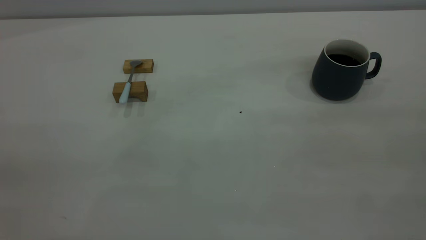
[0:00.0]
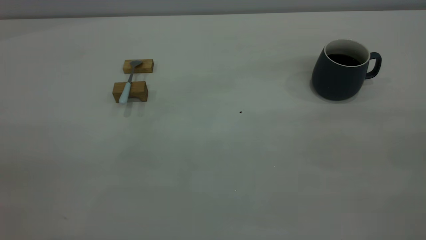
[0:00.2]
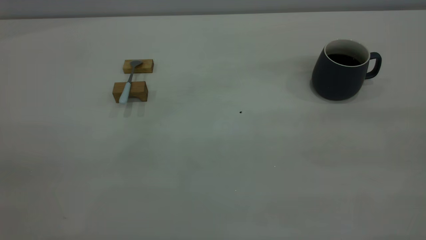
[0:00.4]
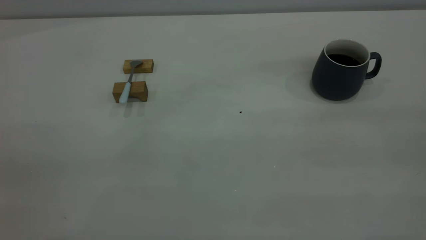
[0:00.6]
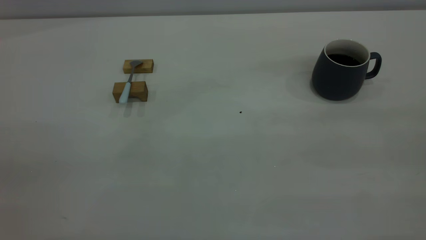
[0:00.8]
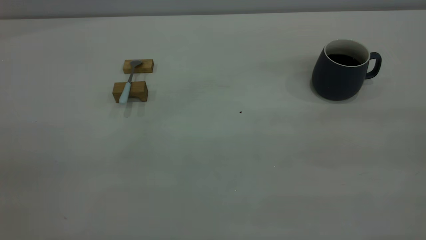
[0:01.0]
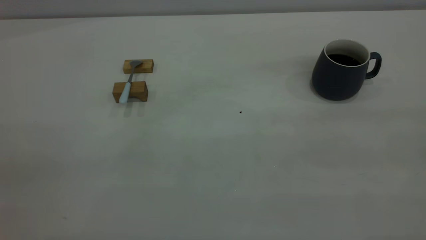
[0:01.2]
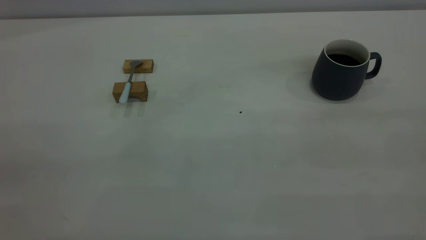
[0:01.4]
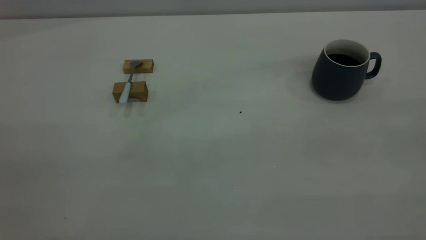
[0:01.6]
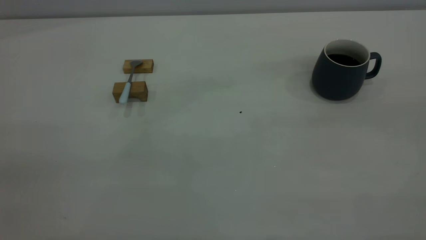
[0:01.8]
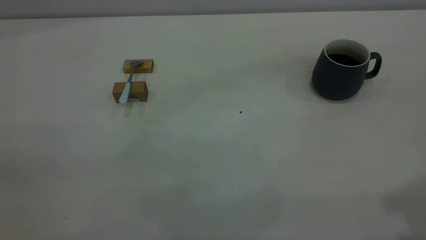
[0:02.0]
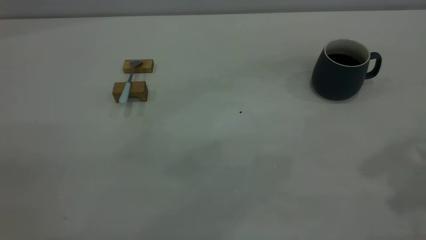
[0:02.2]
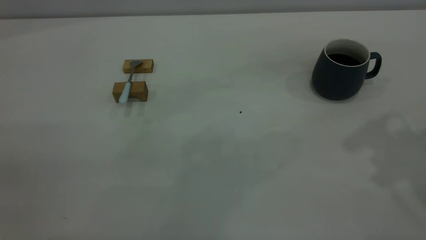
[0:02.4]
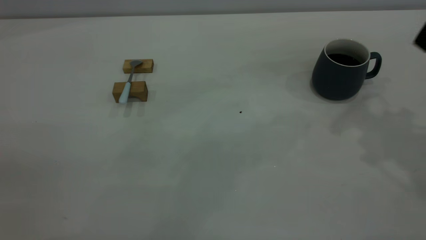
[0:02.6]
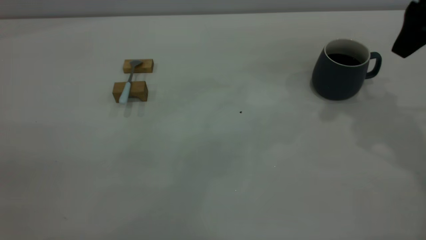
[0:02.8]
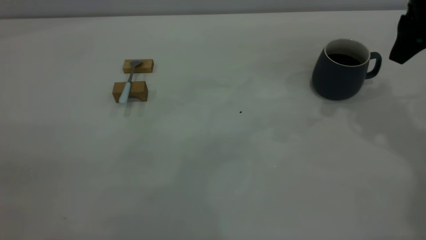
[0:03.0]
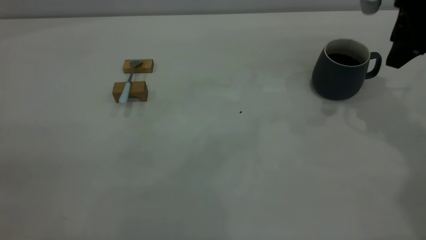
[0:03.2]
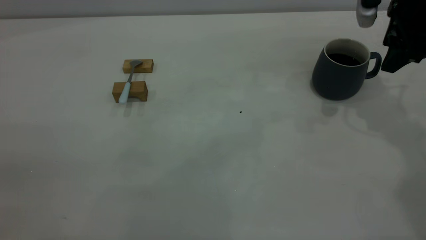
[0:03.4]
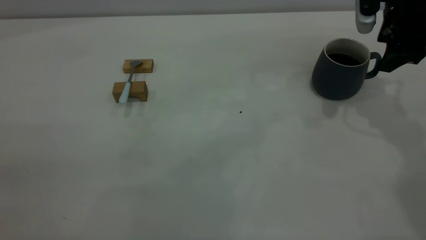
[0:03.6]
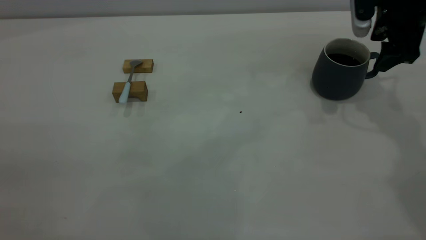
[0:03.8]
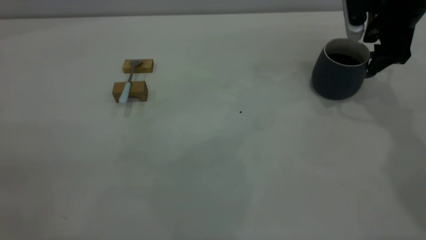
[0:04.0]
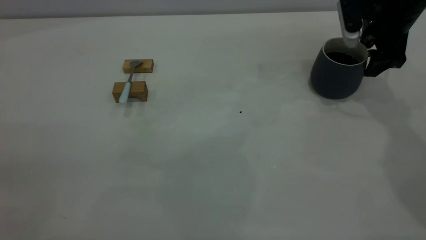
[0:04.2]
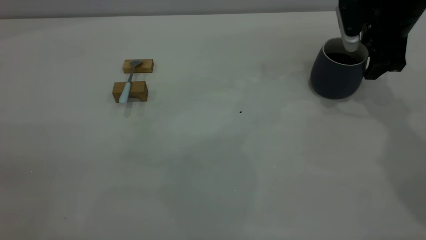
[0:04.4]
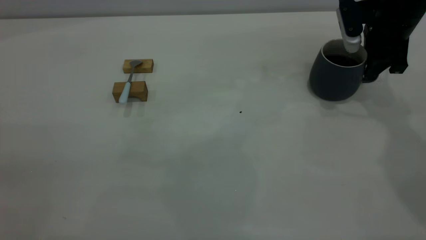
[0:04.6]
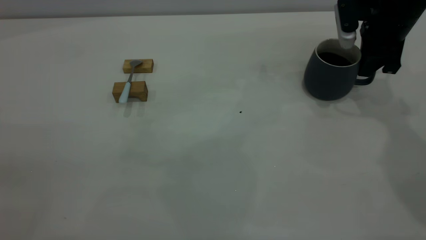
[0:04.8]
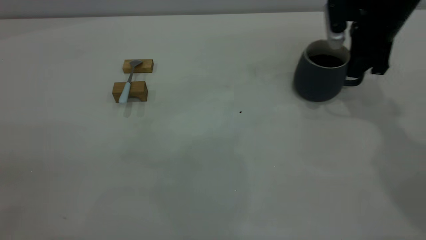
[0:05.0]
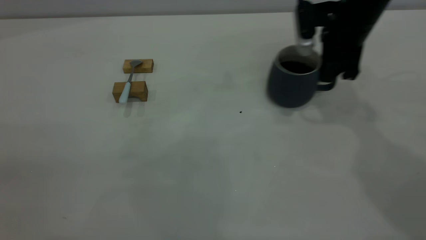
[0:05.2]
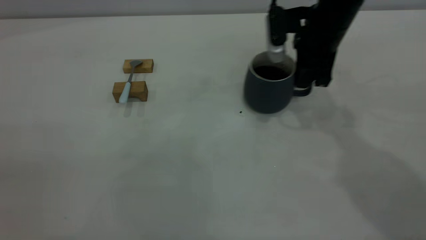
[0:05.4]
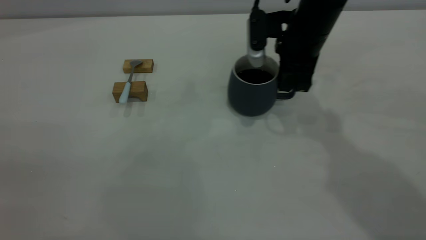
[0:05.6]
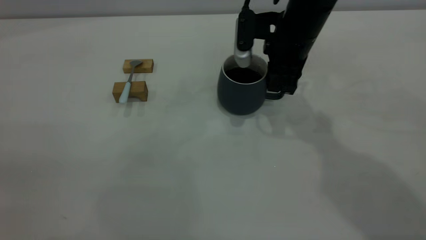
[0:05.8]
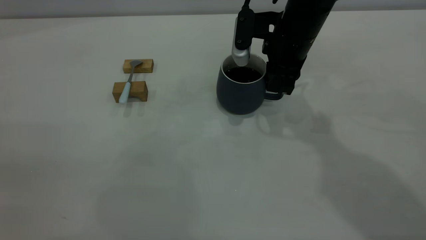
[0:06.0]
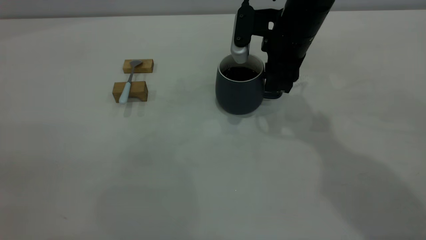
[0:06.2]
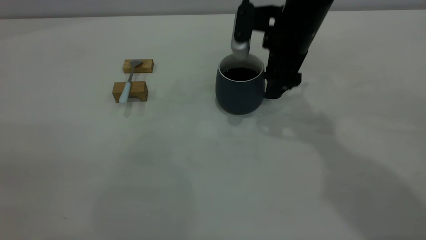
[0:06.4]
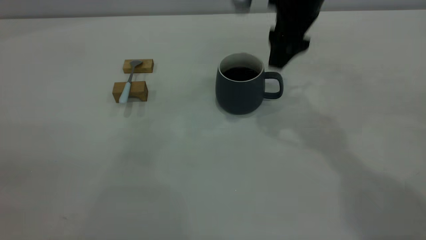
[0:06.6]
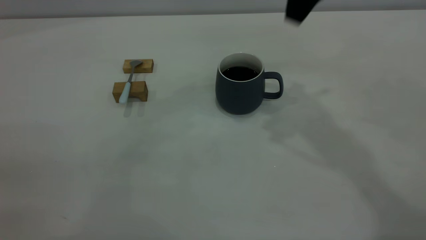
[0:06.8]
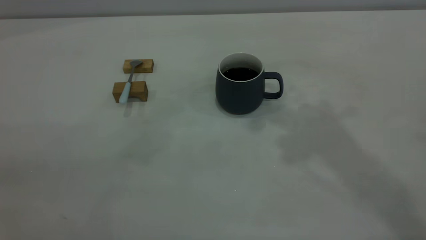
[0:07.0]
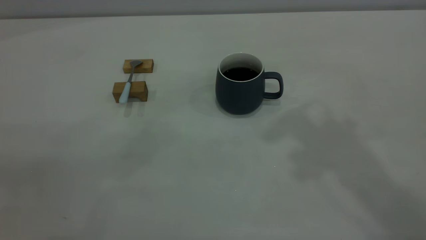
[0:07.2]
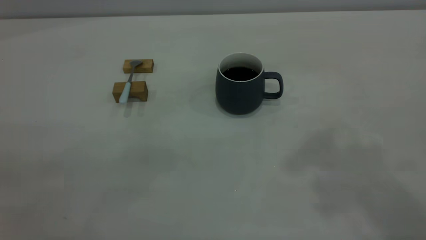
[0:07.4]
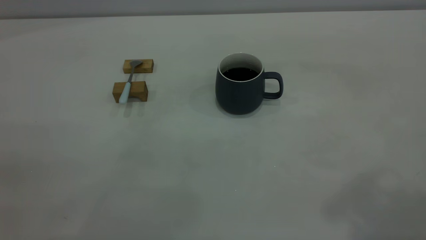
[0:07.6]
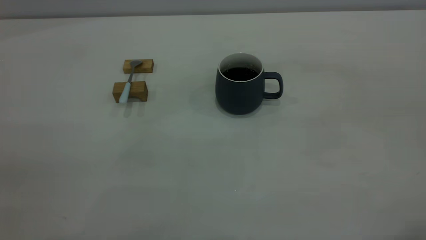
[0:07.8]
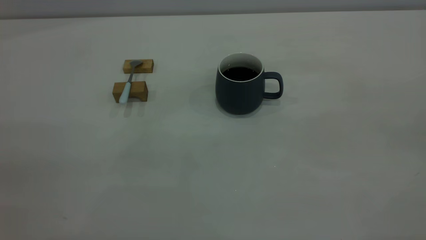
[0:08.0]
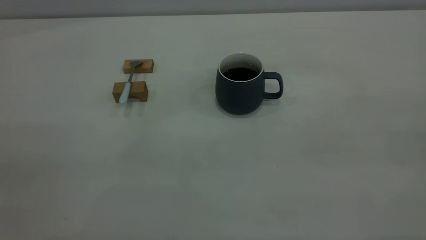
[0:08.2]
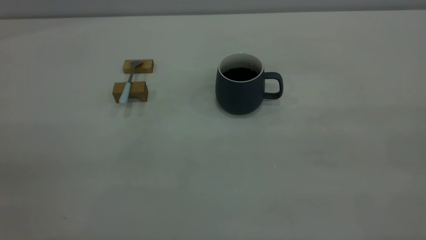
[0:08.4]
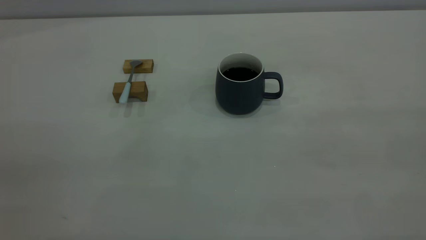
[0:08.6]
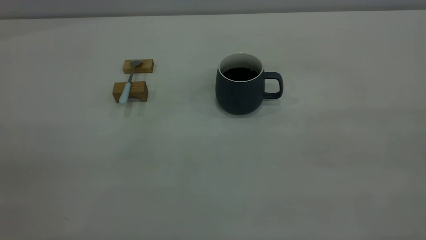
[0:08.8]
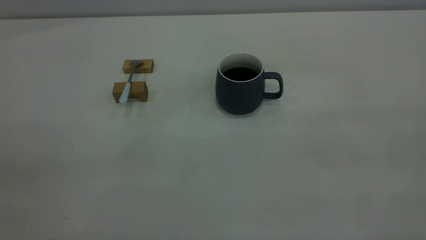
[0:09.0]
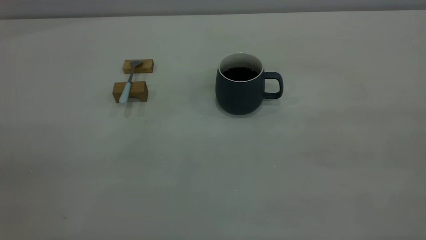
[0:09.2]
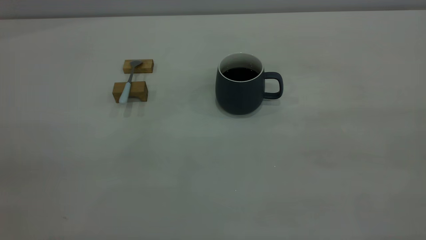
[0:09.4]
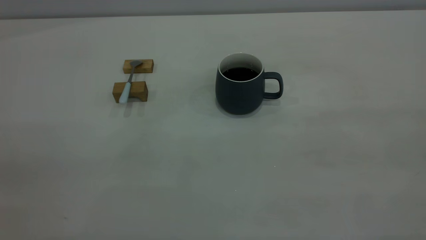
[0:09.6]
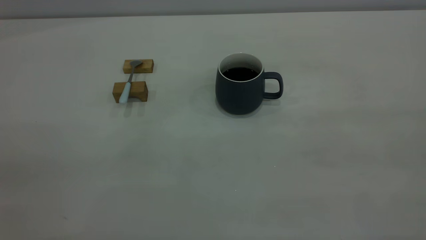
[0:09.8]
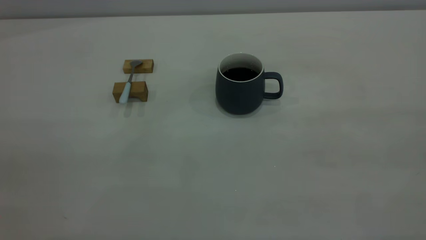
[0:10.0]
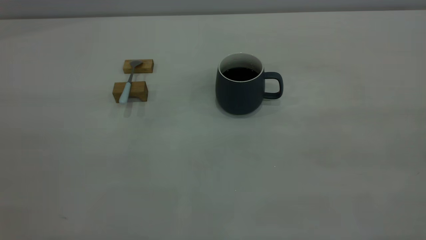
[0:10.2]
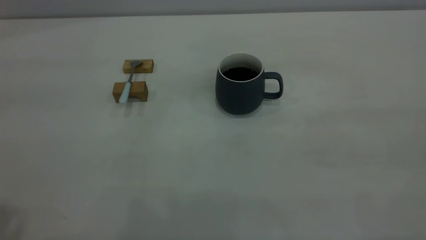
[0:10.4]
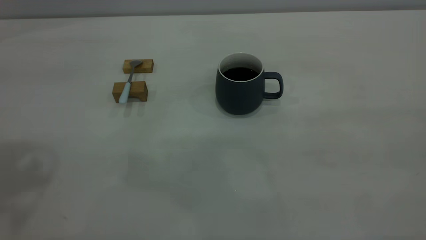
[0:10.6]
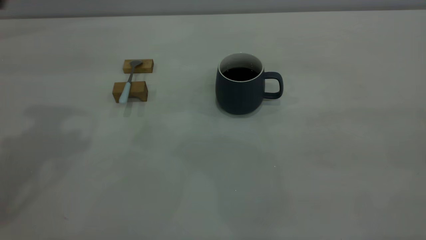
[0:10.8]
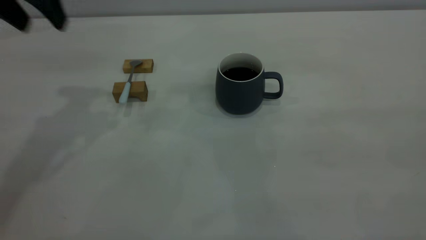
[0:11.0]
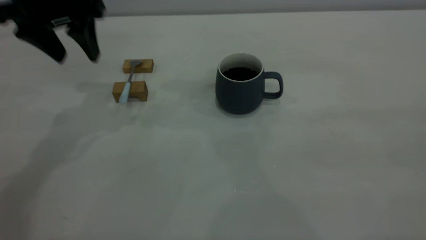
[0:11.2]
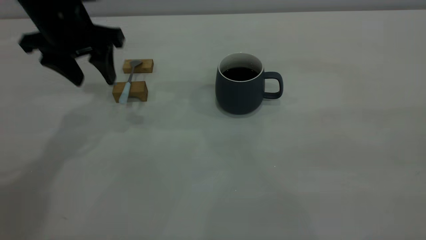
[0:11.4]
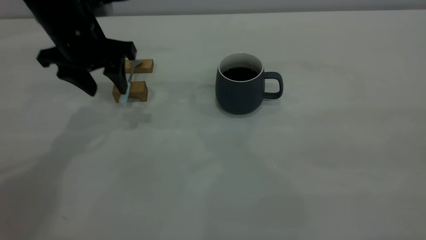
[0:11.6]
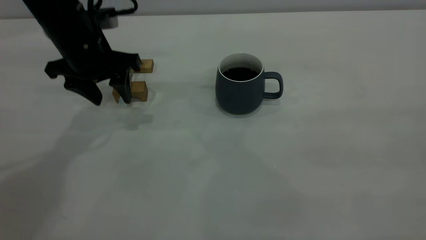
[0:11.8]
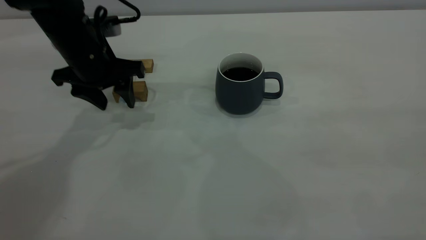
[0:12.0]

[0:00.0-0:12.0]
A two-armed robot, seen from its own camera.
Step, 0:00.0 to 0:06.6: Move the cup with coffee to the center of view.
0:01.6 to 0:03.0: The right gripper goes roughly 40 cm forward and downward.
0:03.0 to 0:04.4: The right gripper travels downward and forward by roughly 10 cm.
0:04.4 to 0:06.0: The right gripper moves to the left, some 15 cm, and closes its fingers.
0:06.0 to 0:07.6: The right gripper goes about 40 cm upward and backward, and opens its fingers.
0:10.4 to 0:12.0: The left gripper travels downward and forward by about 35 cm.

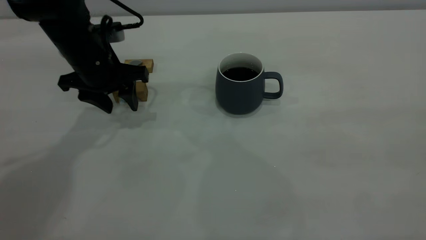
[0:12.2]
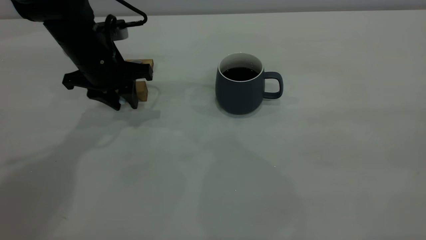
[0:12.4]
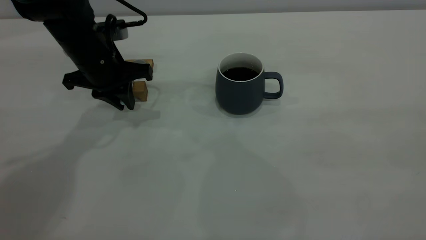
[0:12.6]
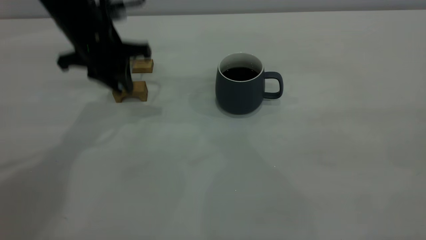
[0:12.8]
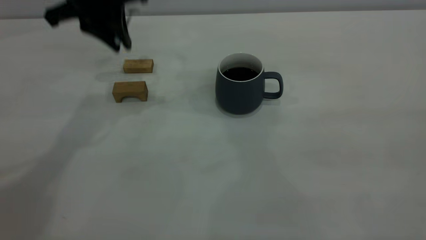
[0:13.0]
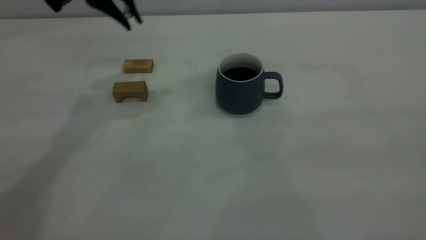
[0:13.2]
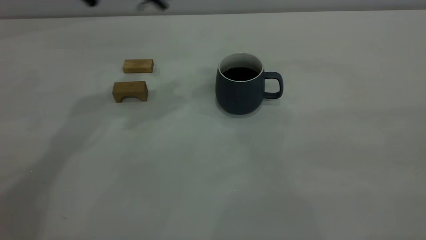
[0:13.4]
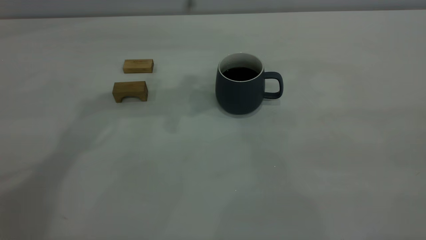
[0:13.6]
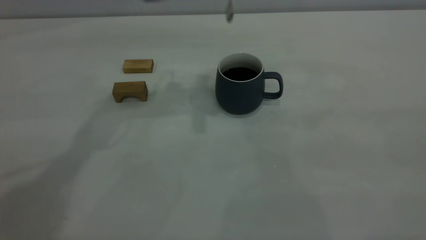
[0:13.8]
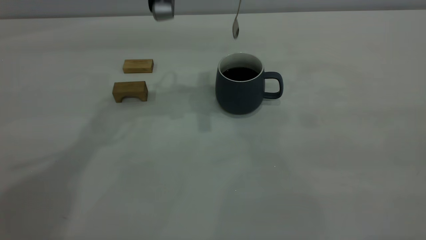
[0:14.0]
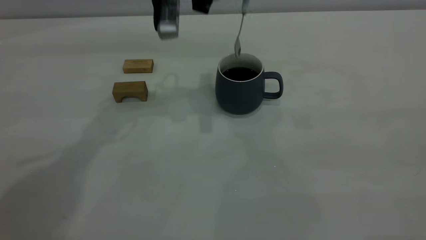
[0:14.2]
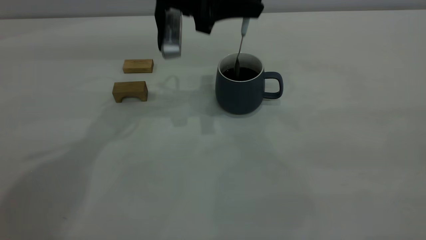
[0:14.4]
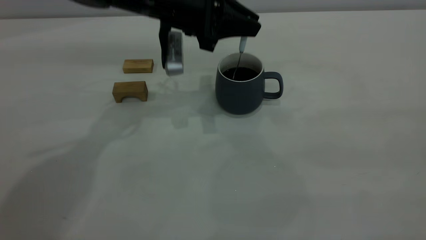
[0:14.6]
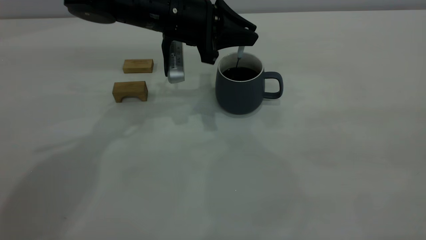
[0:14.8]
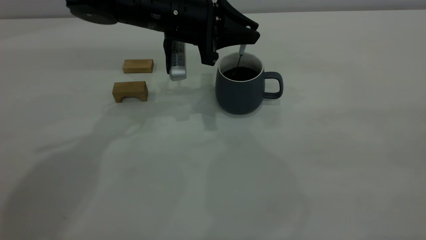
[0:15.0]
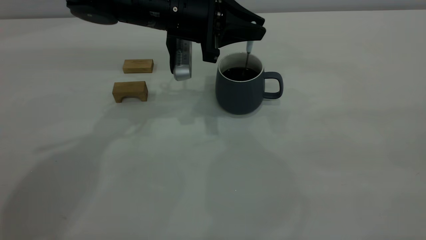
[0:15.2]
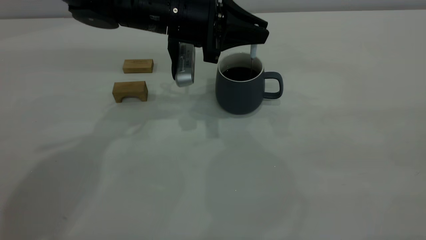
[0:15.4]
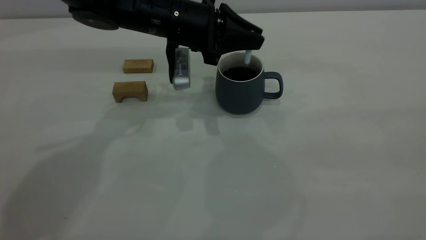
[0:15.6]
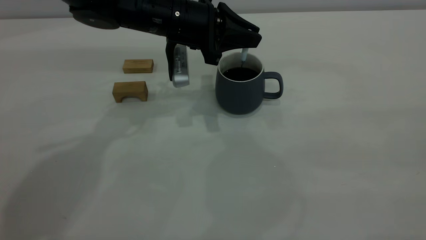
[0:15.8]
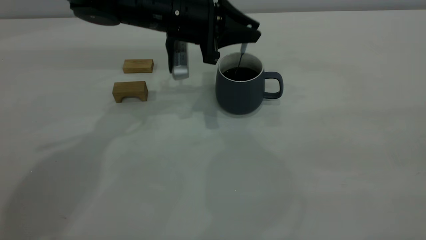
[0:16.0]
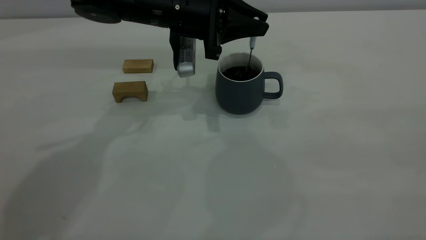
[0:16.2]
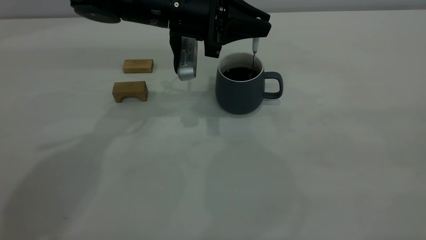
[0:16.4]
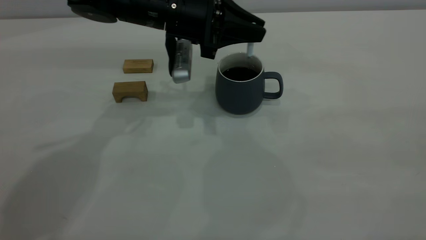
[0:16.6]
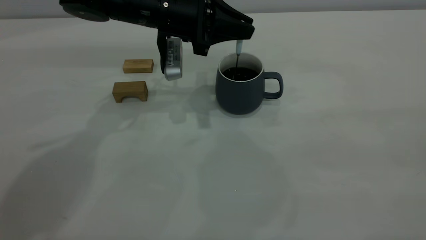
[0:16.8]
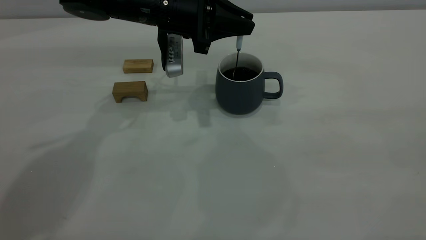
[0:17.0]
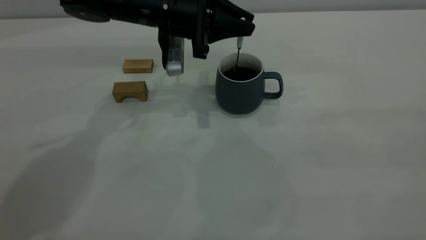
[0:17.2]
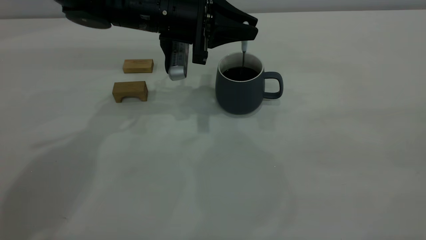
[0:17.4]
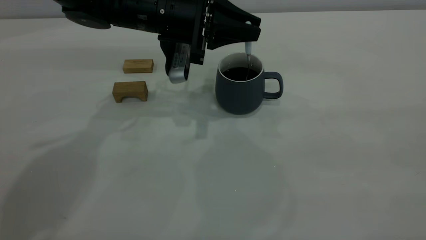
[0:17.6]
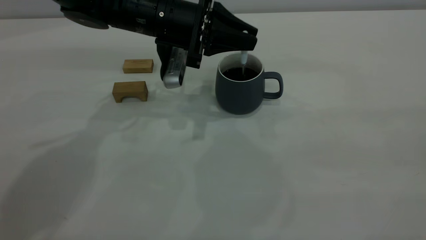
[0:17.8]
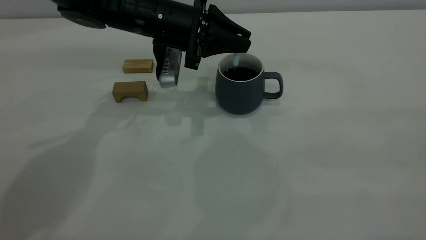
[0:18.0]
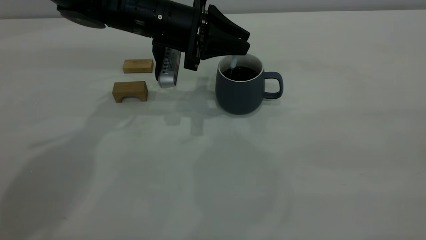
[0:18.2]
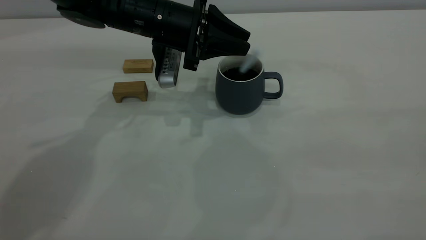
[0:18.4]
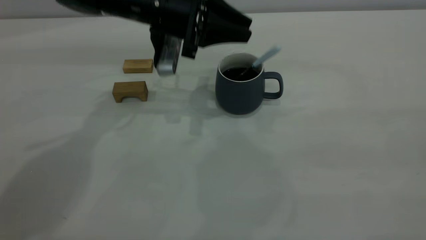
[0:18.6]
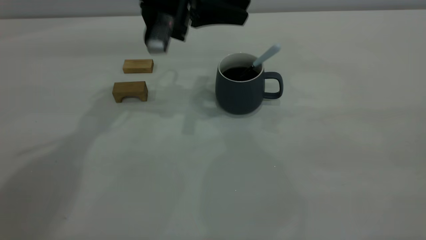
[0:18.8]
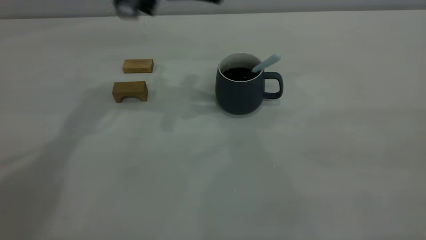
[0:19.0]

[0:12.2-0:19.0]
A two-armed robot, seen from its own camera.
Step, 0:13.0 to 0:18.8: Stir the coffee in the cup.
0:12.2 to 0:13.6: The left gripper heads upward and to the right, covering about 20 cm, and closes up.
0:13.6 to 0:15.0: The left gripper goes some 15 cm downward.
0:15.0 to 0:17.6: The grippers make only small movements.
0:17.6 to 0:19.0: The left gripper moves upward, about 10 cm.
